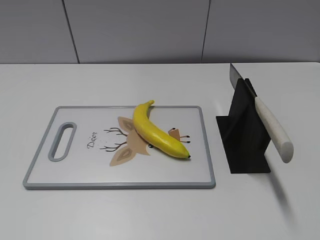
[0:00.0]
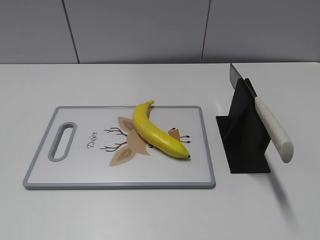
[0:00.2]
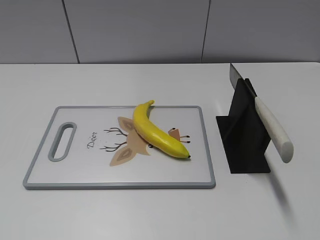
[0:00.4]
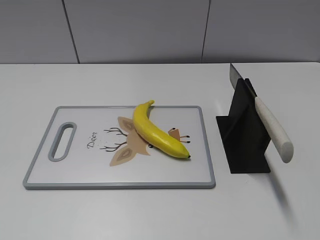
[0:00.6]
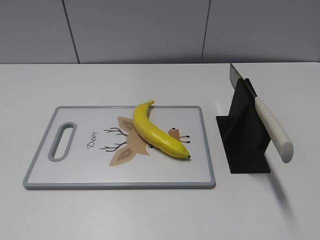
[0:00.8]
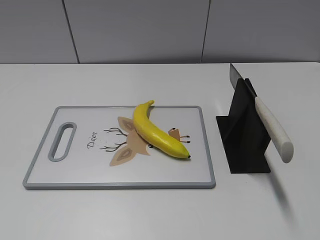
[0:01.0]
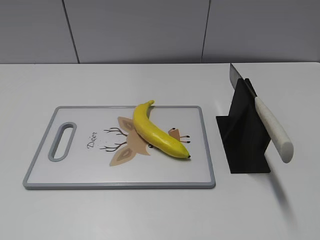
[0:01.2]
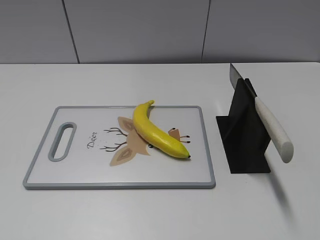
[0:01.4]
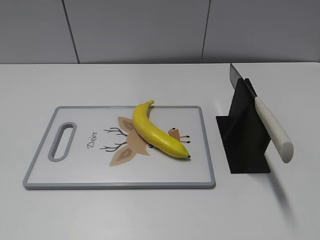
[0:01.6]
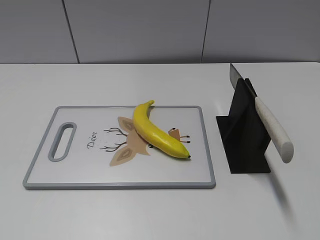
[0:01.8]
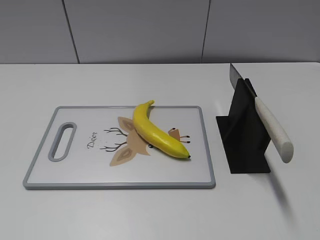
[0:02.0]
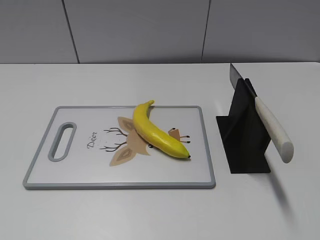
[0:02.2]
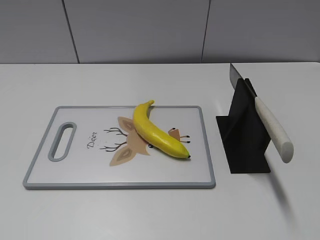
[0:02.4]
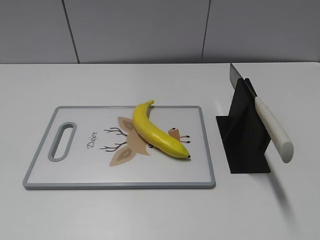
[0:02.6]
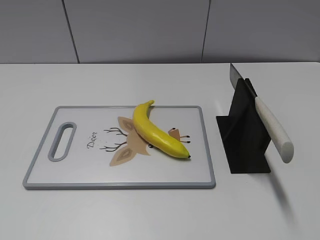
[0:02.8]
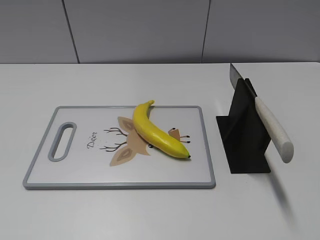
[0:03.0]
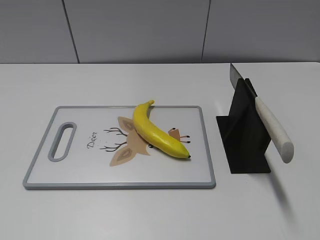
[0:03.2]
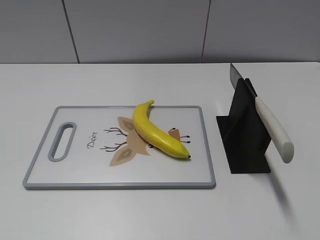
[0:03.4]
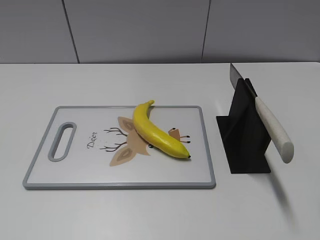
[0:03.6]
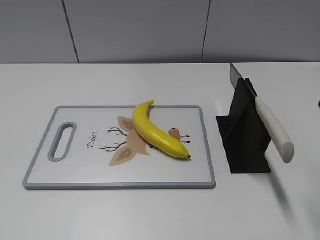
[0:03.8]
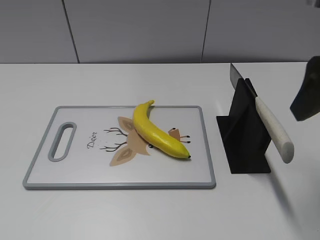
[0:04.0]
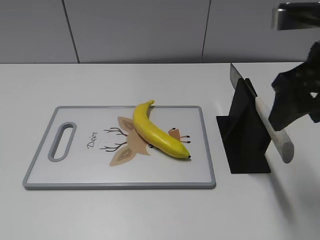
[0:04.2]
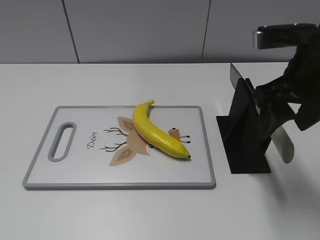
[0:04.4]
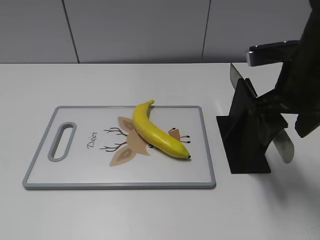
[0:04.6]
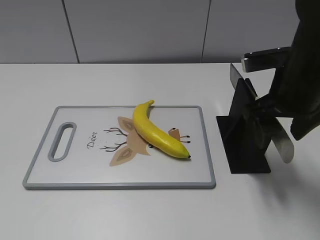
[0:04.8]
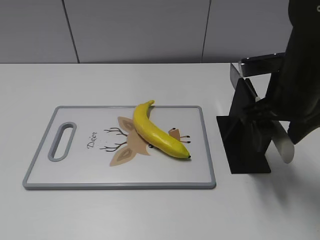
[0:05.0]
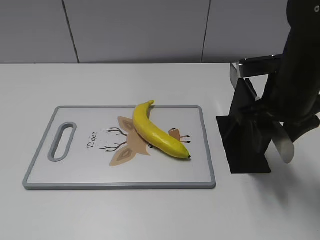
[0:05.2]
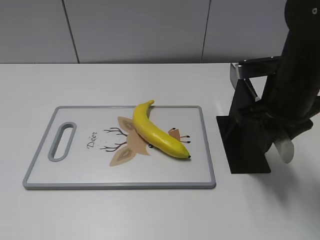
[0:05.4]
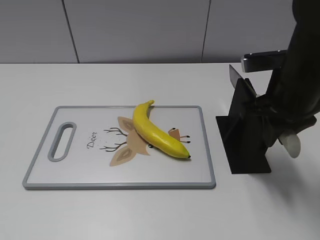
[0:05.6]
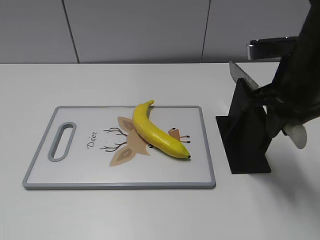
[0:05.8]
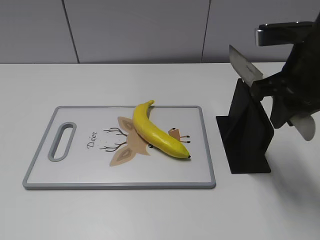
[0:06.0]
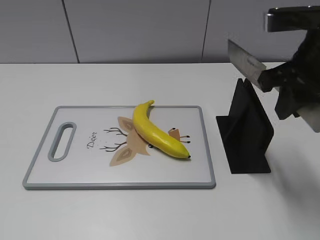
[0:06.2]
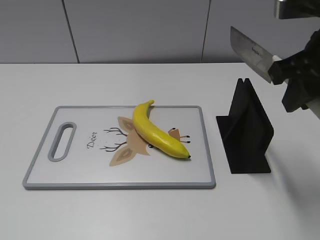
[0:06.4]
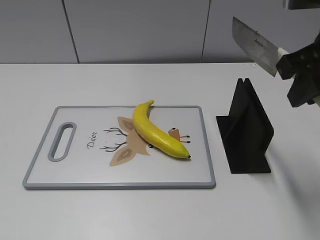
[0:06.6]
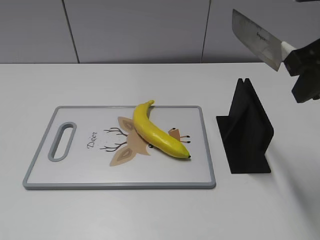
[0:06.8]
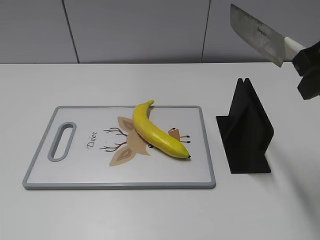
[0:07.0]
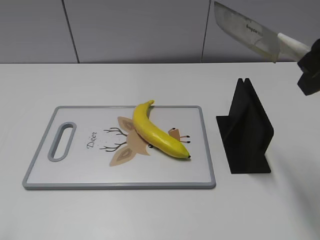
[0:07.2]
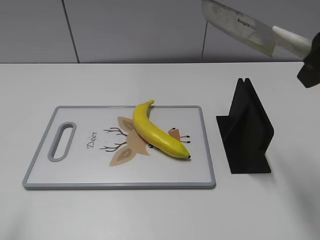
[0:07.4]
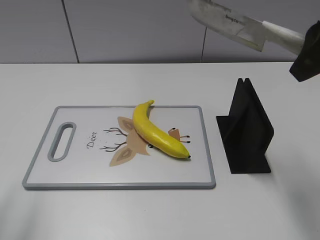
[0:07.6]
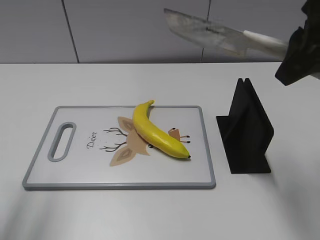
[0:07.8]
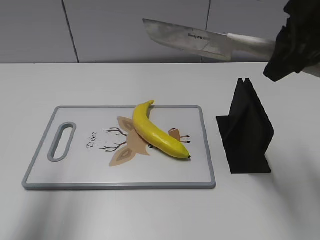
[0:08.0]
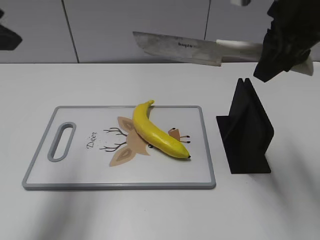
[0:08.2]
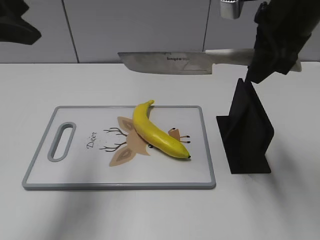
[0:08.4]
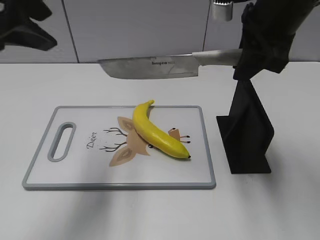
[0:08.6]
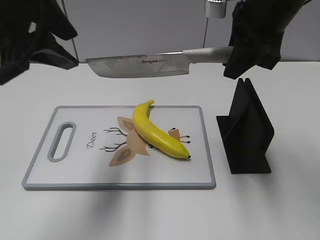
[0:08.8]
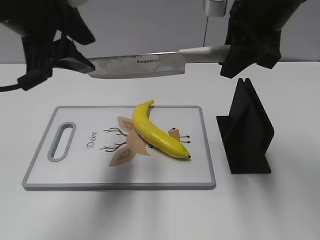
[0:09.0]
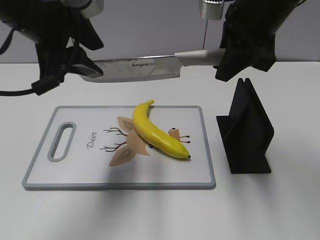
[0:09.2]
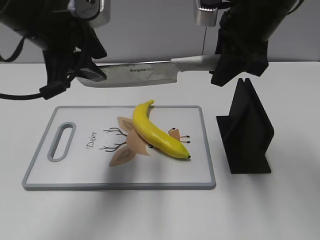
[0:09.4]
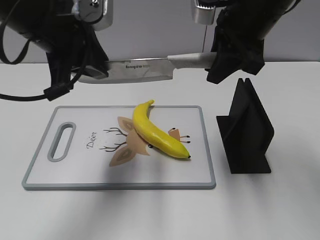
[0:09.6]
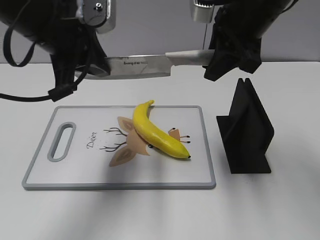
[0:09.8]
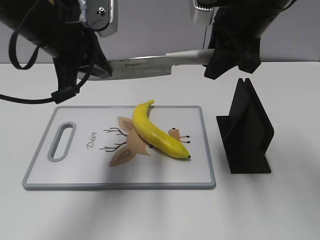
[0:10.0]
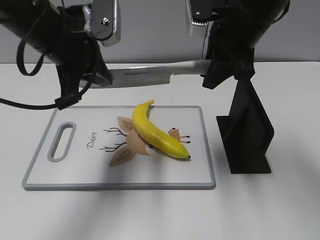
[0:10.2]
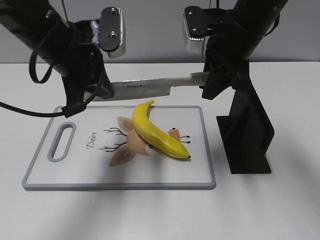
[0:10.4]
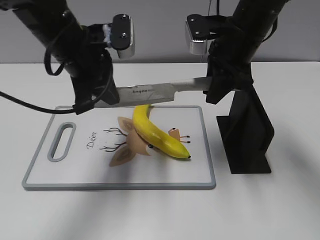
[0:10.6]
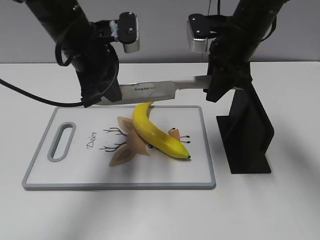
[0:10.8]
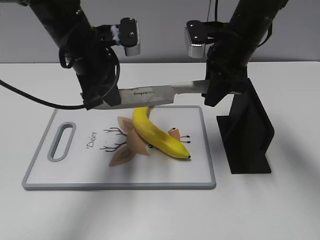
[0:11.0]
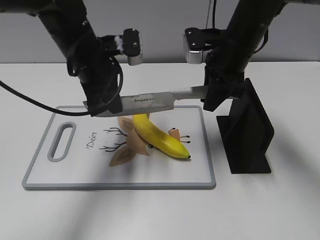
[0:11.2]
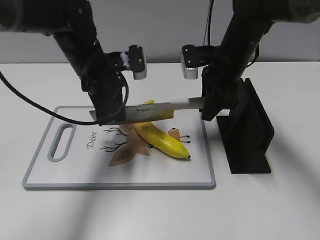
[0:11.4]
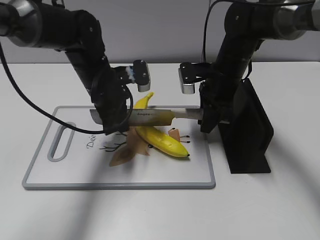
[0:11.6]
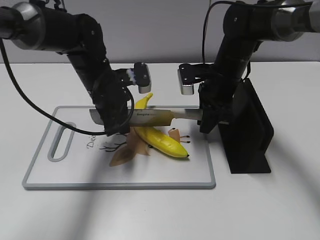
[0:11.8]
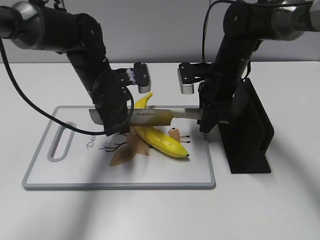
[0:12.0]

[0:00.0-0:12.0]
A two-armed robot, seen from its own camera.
Task of the whole recording: cut plastic banana.
Step, 0:00.0 to 0:06.8: Grab the knife handle with your right hand.
0:03.0 to 0:04.4: The right gripper heads forward, to the left and downward, covering roughly 20 cm.
0:04.4 to 0:06.0: The right gripper closes.
0:06.0 to 0:07.6: The left gripper travels forward and upward by approximately 15 cm, while the right gripper goes roughly 10 cm upward.
0:07.6 to 0:09.0: The left gripper shifts approximately 20 cm to the right and forward; the right gripper goes some 10 cm forward and to the left.
0:09.0 to 0:10.4: Both grippers move downward, approximately 5 cm. The left gripper closes.
0:10.4 to 0:12.0: The right gripper goes some 10 cm downward, while the left gripper travels downward and forward by roughly 10 cm.

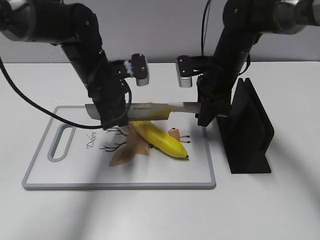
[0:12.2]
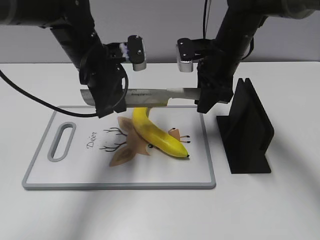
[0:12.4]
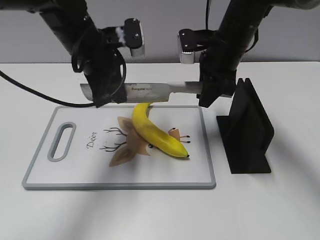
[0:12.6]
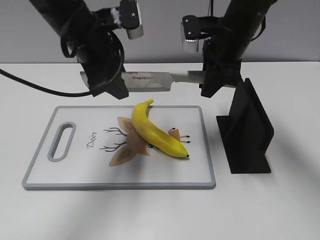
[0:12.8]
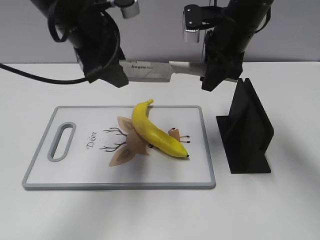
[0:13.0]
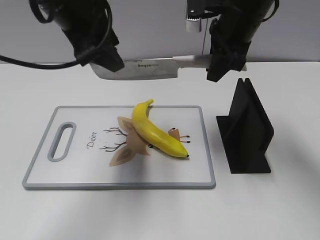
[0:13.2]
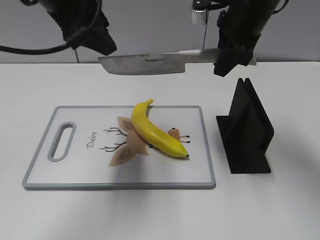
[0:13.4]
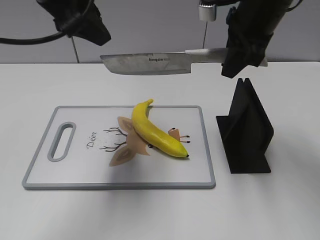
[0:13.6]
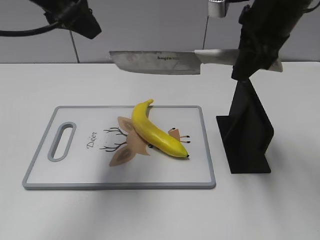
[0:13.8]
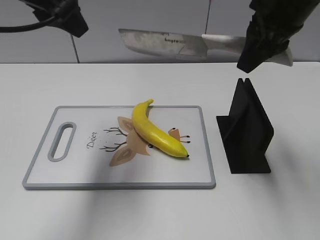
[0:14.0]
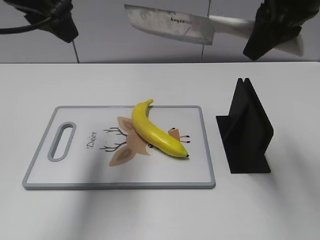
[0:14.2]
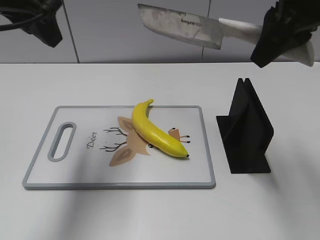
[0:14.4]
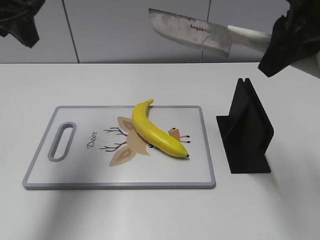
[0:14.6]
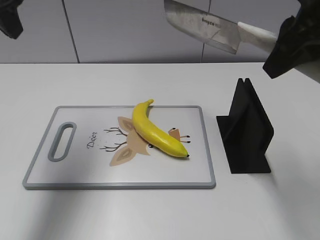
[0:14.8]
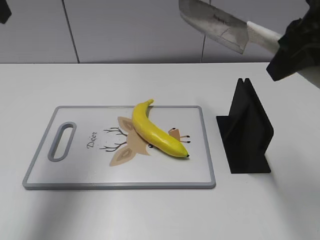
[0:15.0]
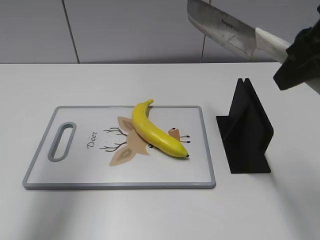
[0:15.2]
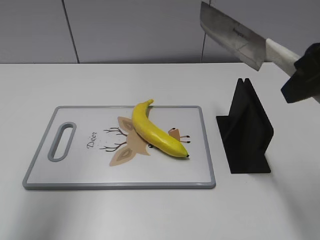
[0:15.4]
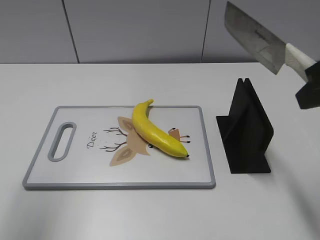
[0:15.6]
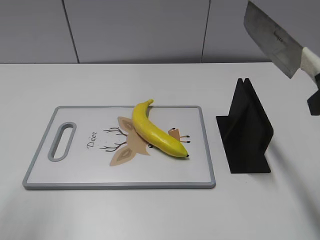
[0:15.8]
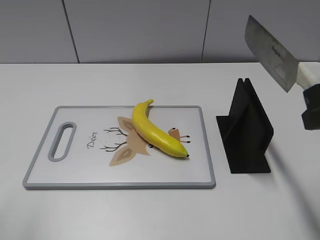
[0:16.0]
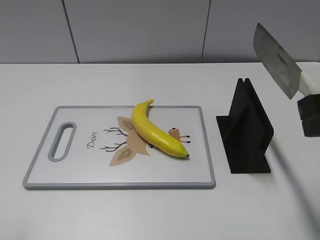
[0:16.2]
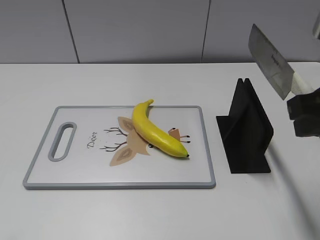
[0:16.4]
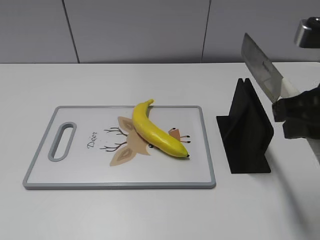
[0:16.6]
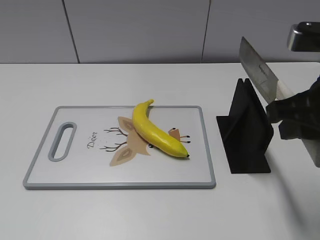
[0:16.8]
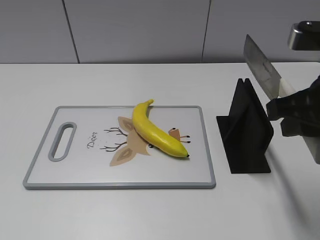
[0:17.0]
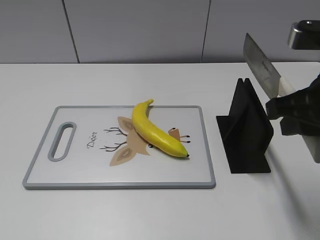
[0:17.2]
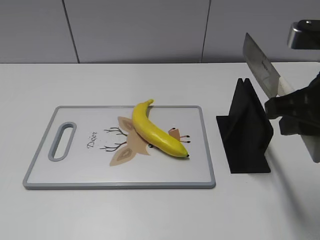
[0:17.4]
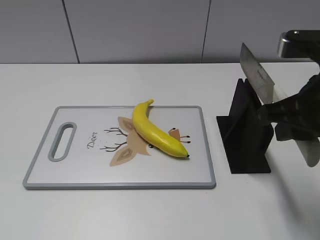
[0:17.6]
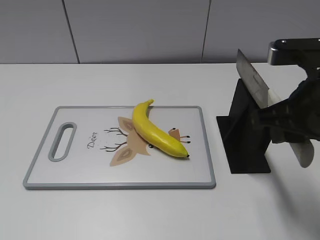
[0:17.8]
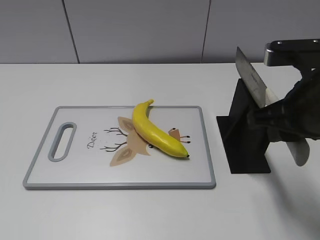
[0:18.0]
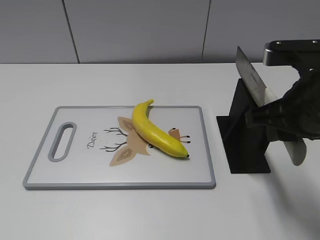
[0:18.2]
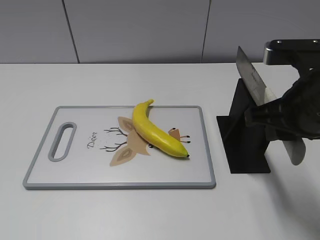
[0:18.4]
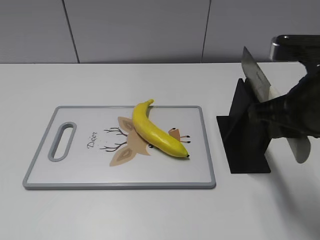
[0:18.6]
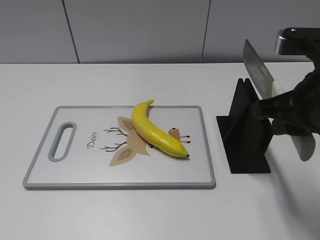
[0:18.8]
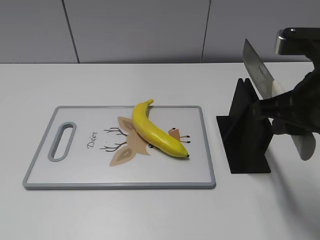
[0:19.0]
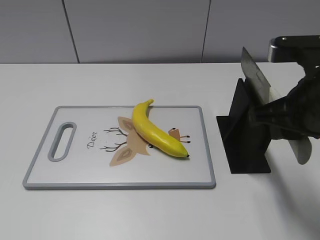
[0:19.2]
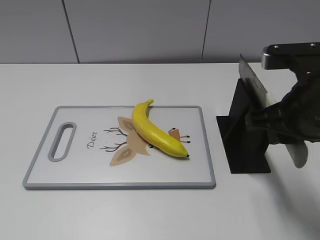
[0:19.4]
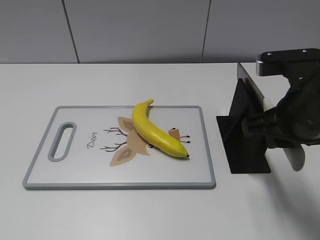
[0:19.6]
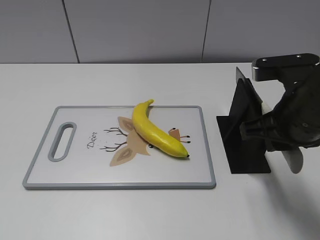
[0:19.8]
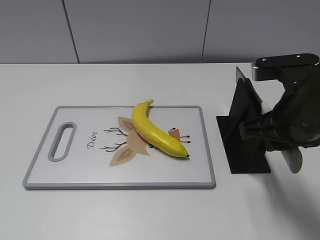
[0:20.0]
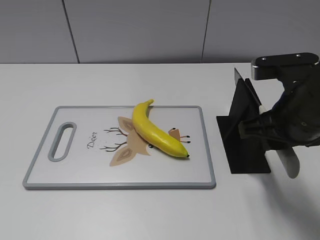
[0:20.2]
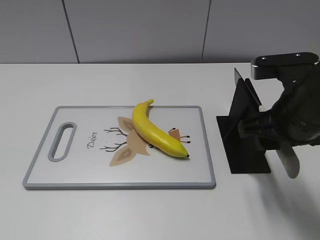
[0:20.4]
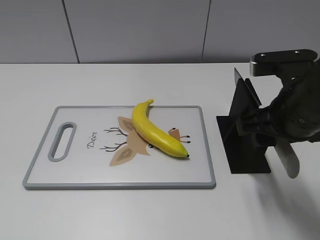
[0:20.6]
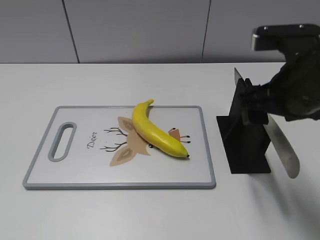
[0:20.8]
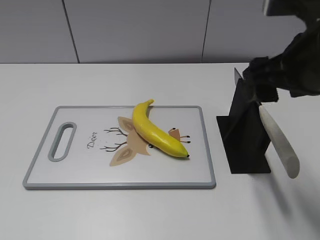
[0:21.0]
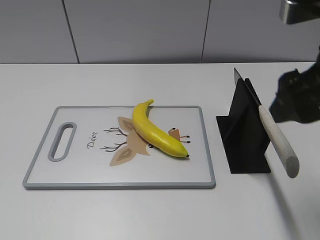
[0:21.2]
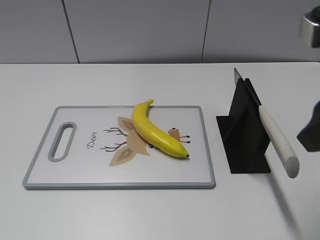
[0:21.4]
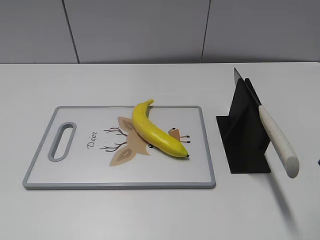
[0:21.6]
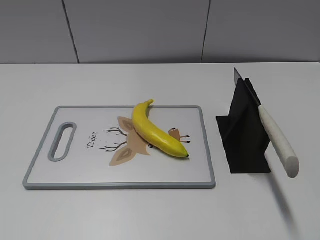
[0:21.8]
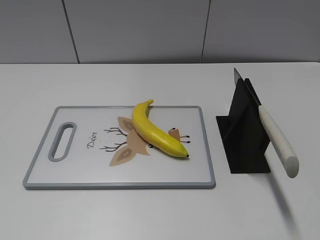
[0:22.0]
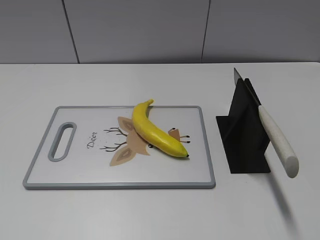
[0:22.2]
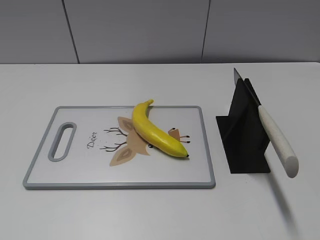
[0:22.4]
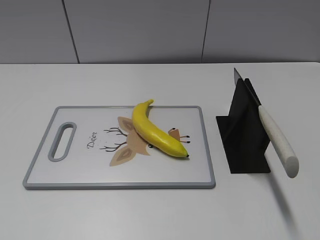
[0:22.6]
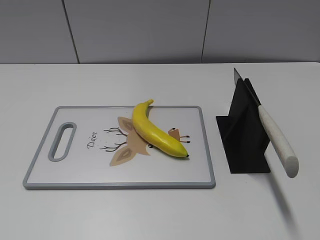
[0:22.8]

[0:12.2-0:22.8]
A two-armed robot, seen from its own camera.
Task of the whole recording: cut plastic banana.
Step, 0:12.6 to 0:15.0: Cut the banana with your right hand.
Step, 0:15.2 to 0:16.4: Lift the knife with your right hand.
0:12.2 to 0:13.8: The left gripper travels upward by roughly 20 cm, and opens, while the right gripper goes approximately 15 cm upward and backward.
0:13.8 to 0:15.2: The right gripper is displaced backward by roughly 10 cm; the left gripper shifts roughly 10 cm to the left.
0:15.2 to 0:16.8: The right gripper travels downward by about 5 cm. The left gripper shifts some 30 cm backward and downward.
0:16.8 to 0:18.2: The grippers stay close to where they were, moving slightly.
0:18.2 to 0:19.8: The grippers make only small movements.
0:19.8 to 0:21.2: The right gripper travels upward by about 10 cm, and opens its fingers.
0:21.2 to 0:22.8: The right gripper is displaced backward and to the right by approximately 20 cm.
